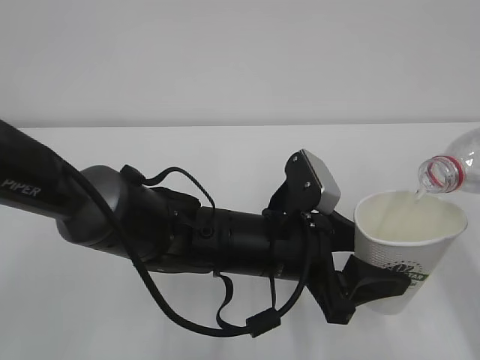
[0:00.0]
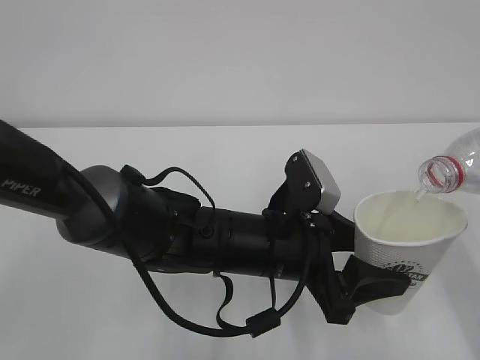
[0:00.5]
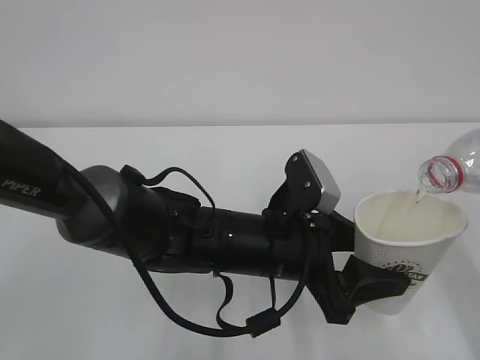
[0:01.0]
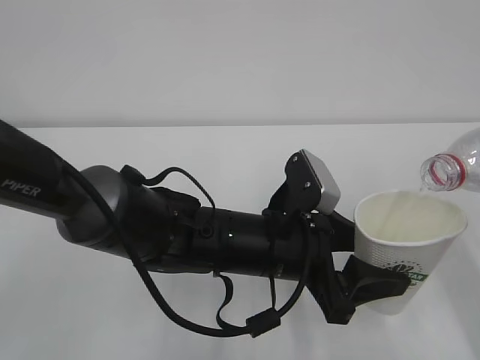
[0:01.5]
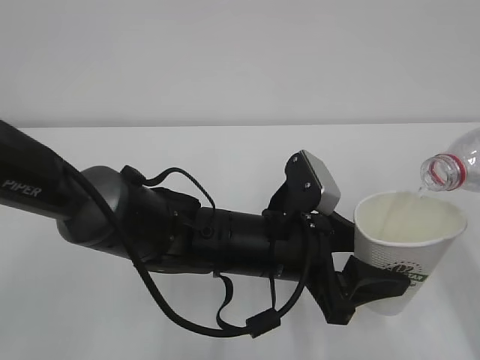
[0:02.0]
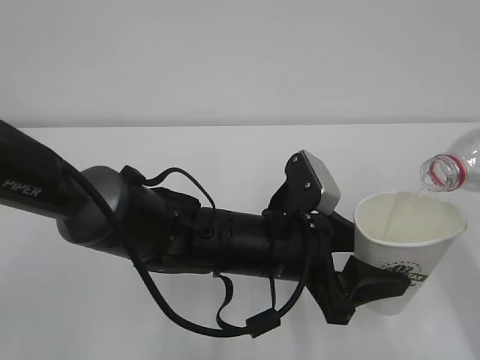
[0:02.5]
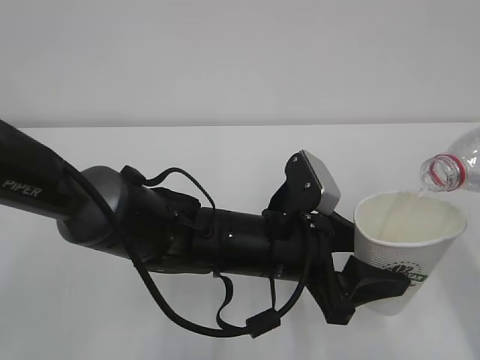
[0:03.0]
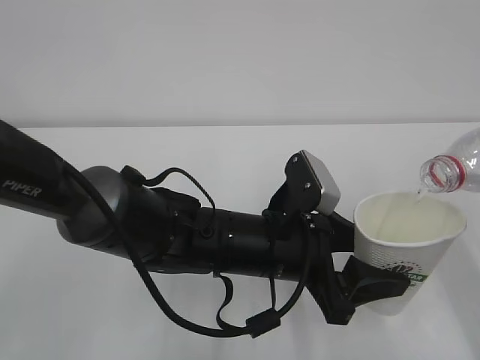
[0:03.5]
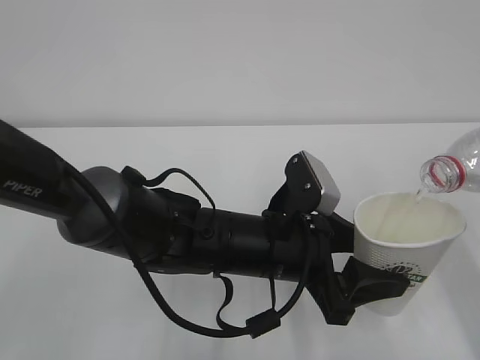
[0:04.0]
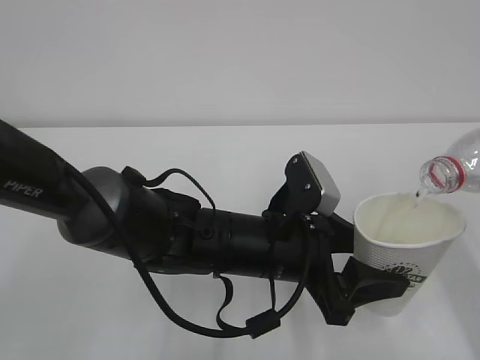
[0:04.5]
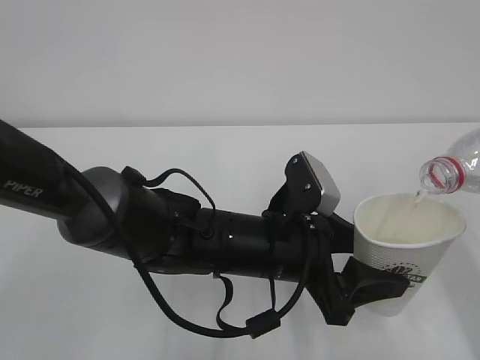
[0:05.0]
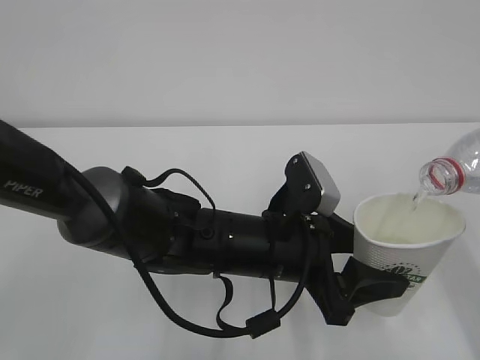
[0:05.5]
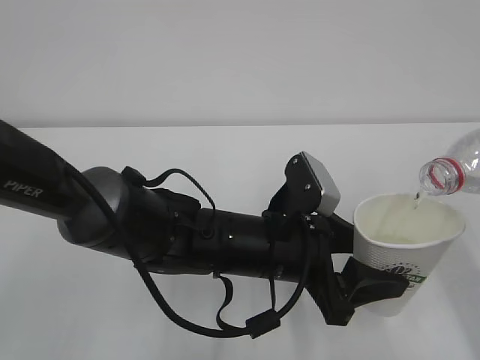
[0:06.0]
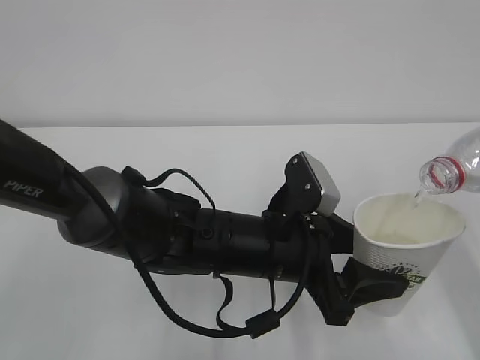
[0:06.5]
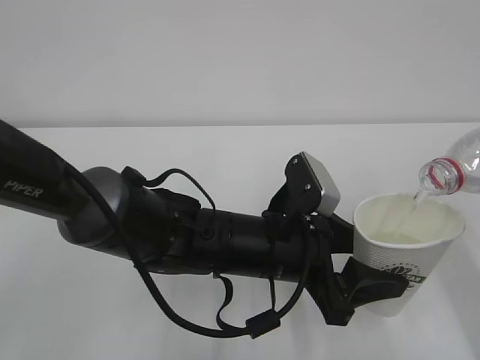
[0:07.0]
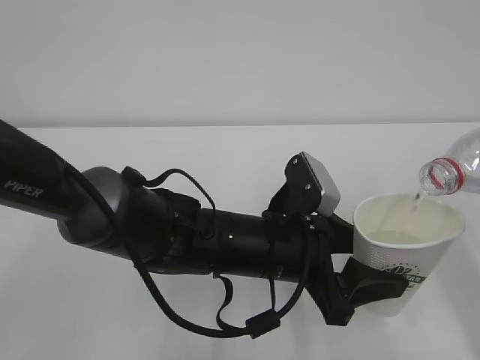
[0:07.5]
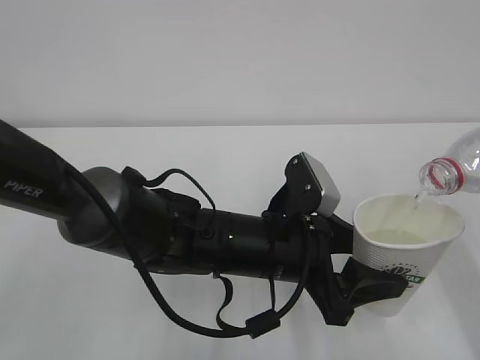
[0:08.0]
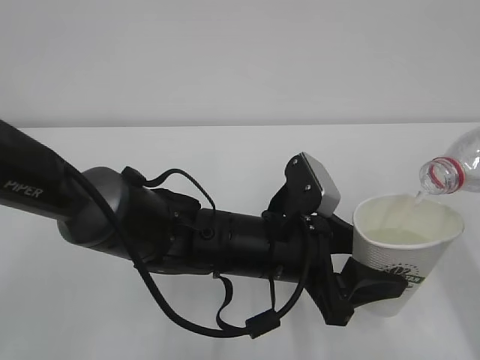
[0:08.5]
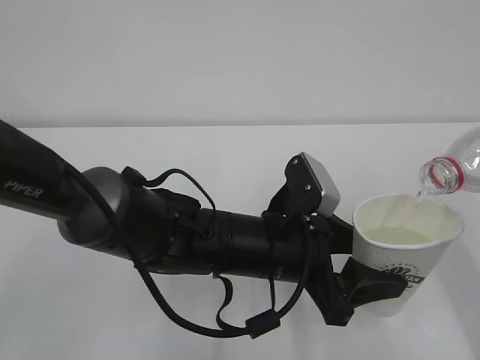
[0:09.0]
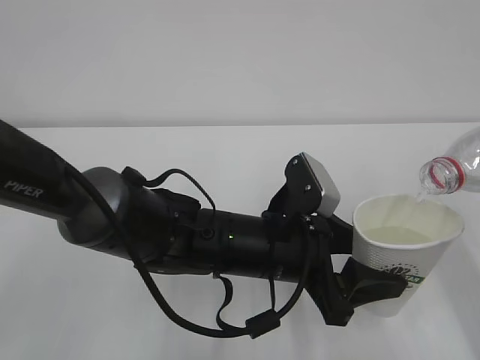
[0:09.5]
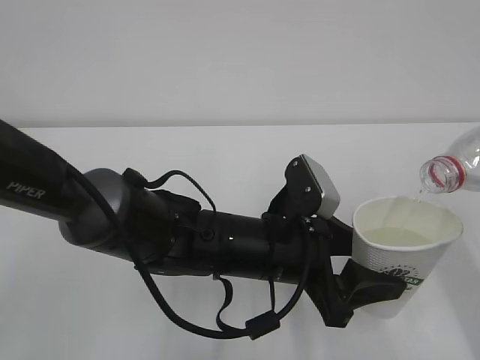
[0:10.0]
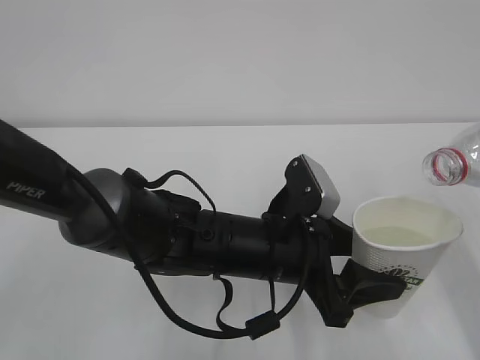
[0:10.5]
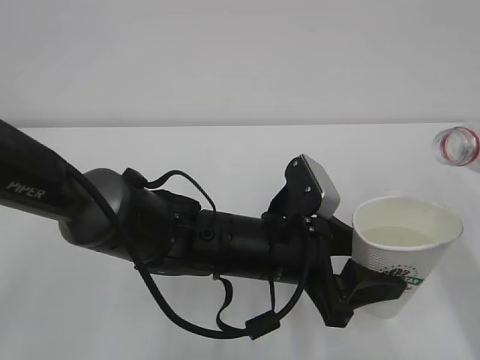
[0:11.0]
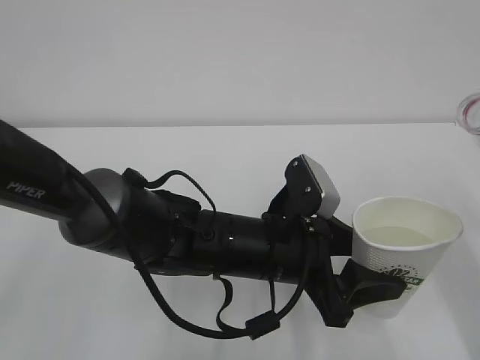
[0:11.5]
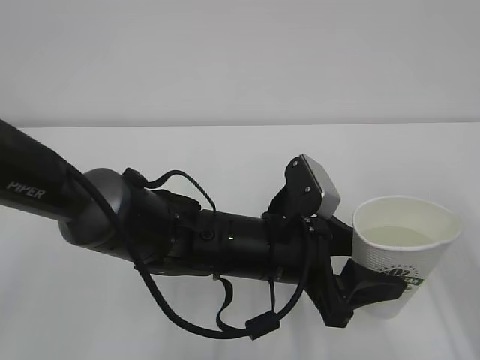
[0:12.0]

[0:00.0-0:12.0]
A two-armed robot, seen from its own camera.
0:00.0 to 0:10.0: Both grippers stay about where they are.

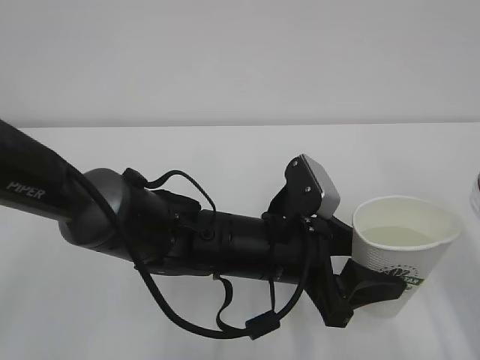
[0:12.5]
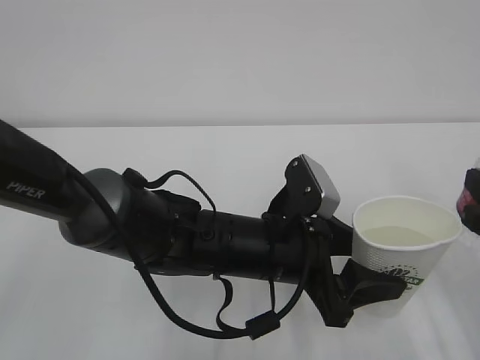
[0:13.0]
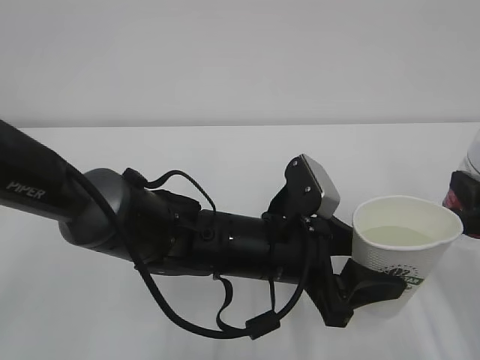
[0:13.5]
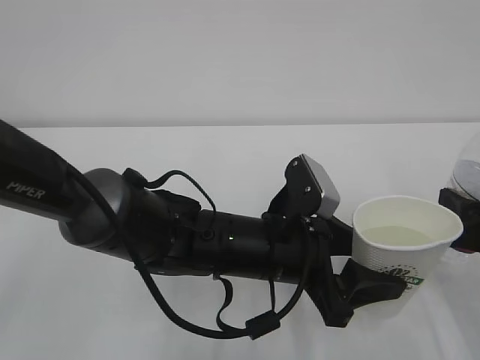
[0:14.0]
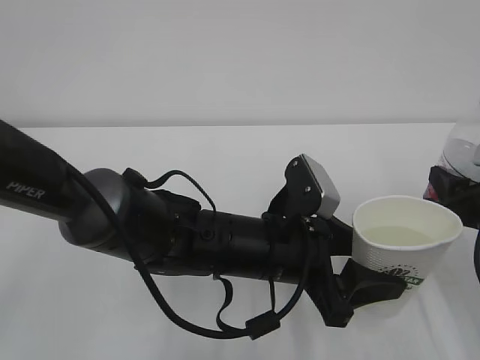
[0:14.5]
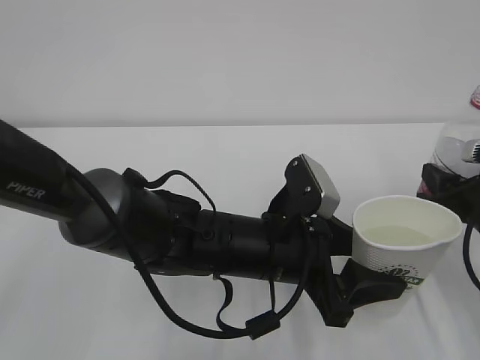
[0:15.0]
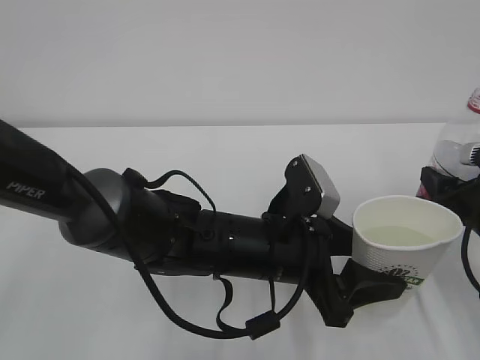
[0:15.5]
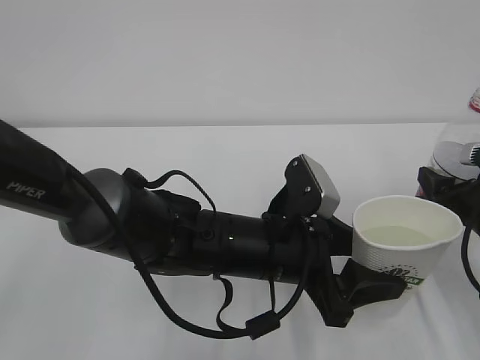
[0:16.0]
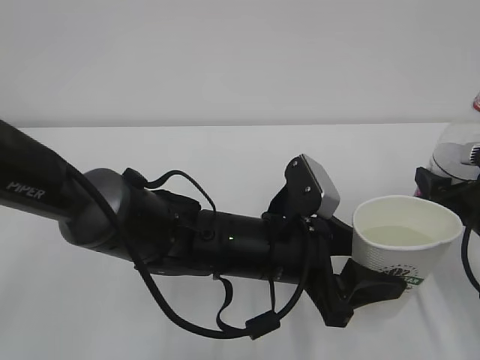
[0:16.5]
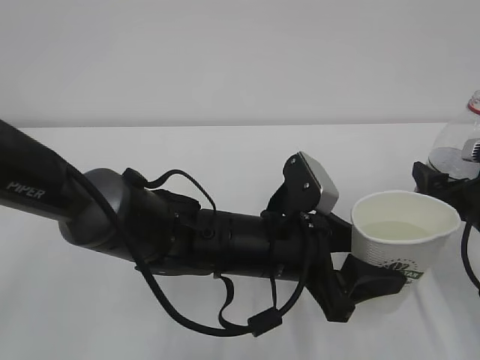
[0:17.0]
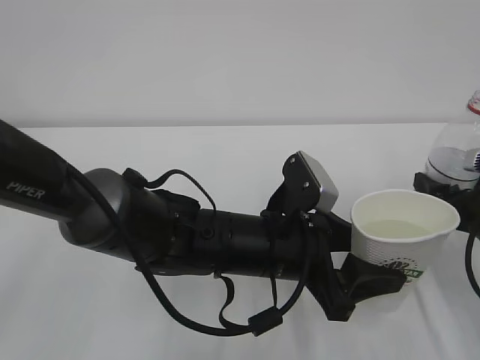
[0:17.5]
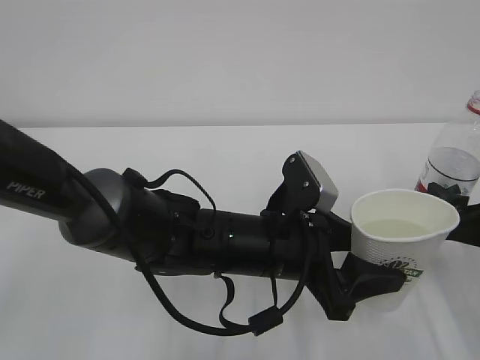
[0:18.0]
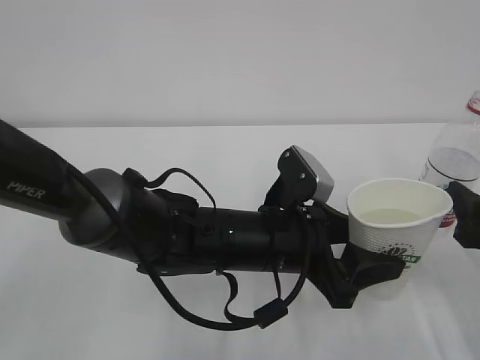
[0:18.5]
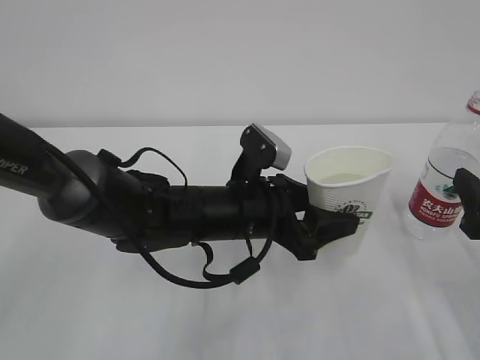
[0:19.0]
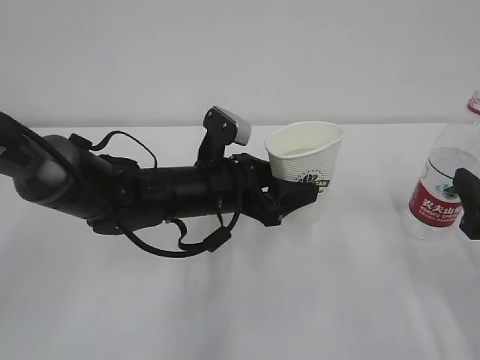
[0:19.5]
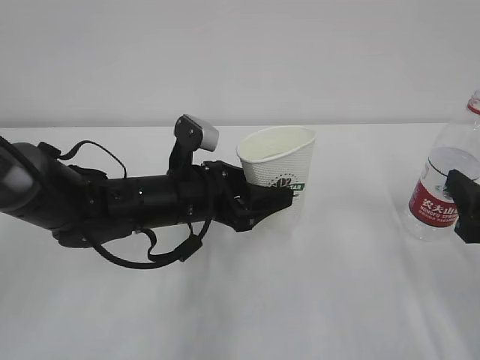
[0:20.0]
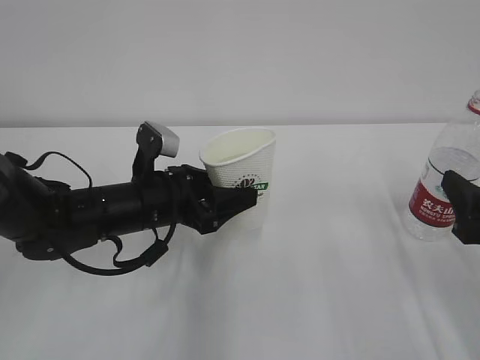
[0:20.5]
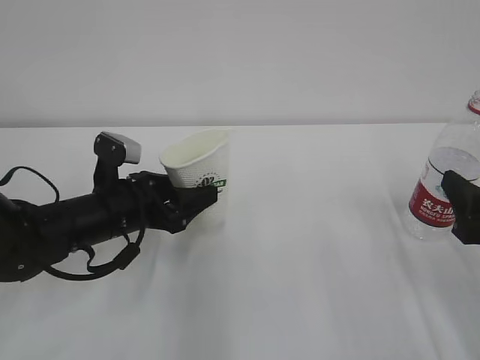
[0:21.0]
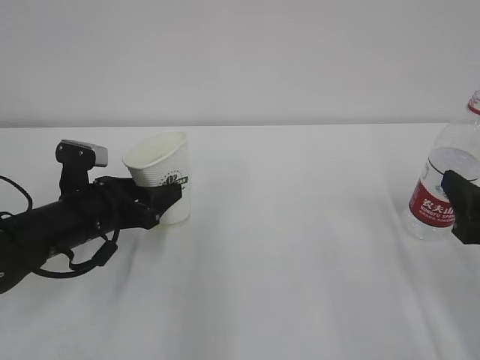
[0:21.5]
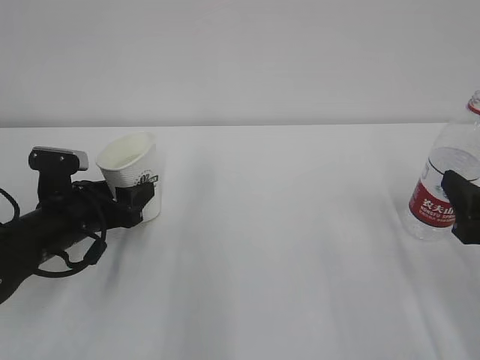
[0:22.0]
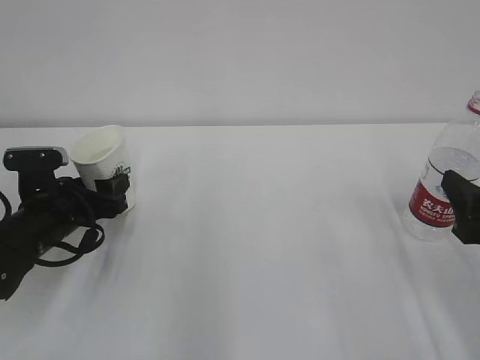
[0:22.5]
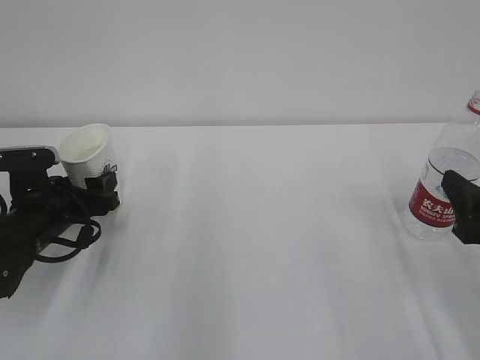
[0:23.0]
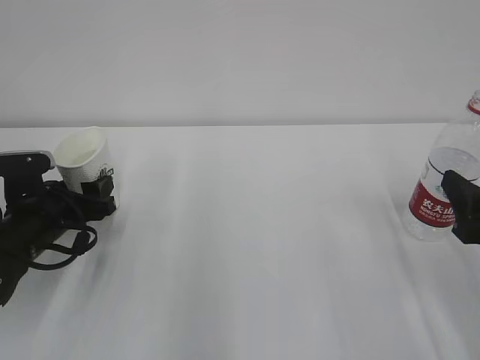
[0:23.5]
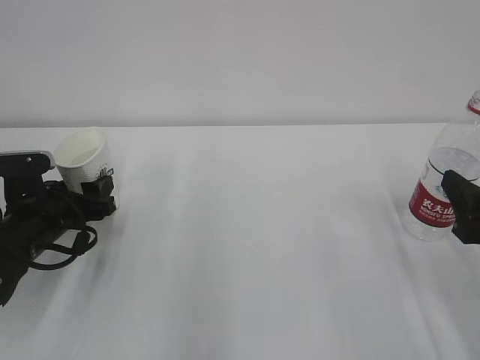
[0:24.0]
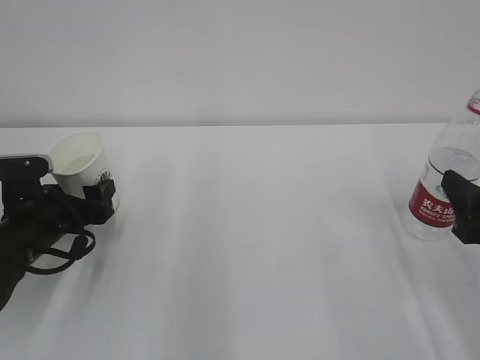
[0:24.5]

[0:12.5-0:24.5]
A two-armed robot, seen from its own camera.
0:12.5 to 0:14.5: The right gripper moves downward and forward, about 10 cm.
0:14.5 to 0:16.5: The right gripper opens its fingers.
0:16.5 to 0:18.5: The right gripper goes roughly 5 cm backward.
0:18.5 to 0:20.5: The left gripper shifts some 15 cm to the left and forward.
0:20.5 to 0:22.5: The left gripper is displaced to the left by approximately 10 cm.
0:22.5 to 0:24.5: The left gripper opens its fingers.

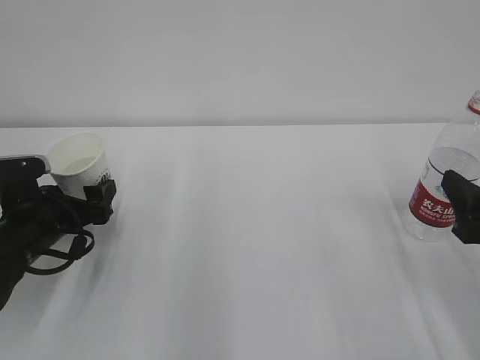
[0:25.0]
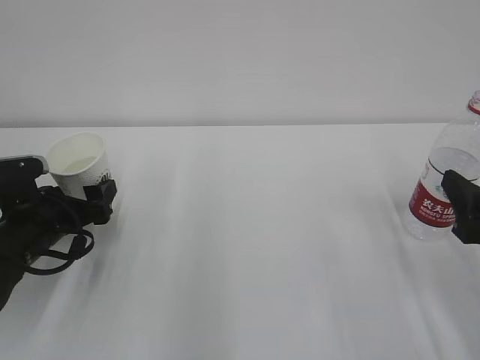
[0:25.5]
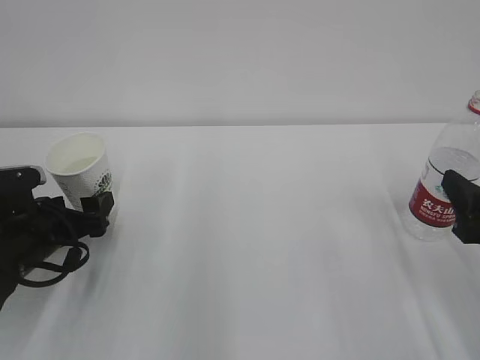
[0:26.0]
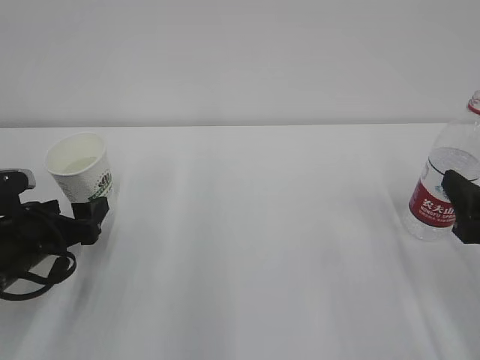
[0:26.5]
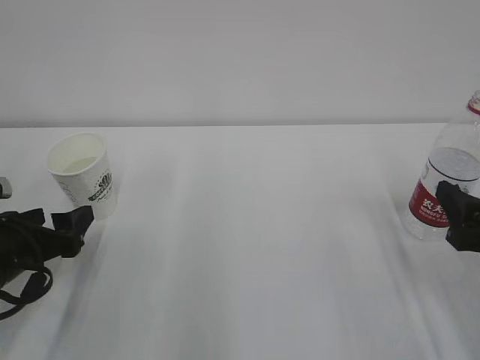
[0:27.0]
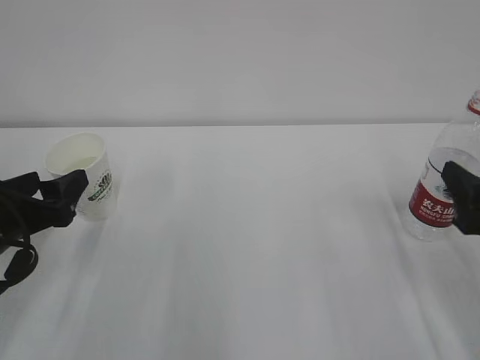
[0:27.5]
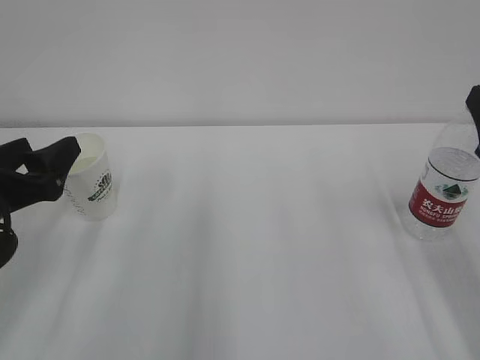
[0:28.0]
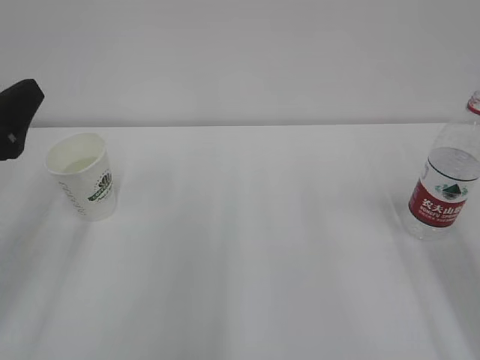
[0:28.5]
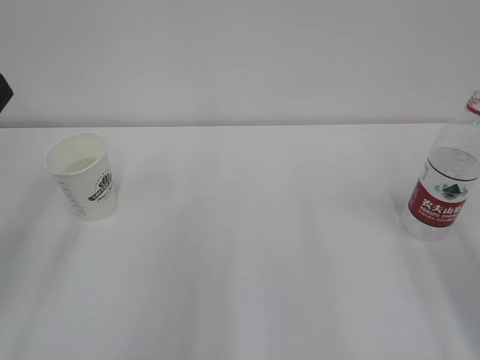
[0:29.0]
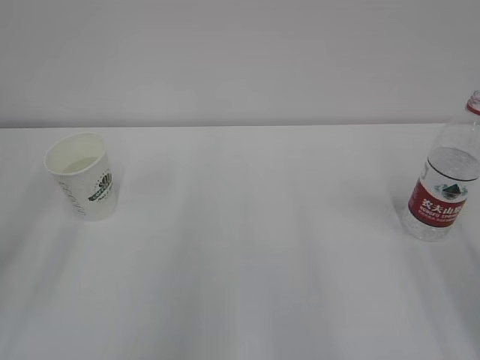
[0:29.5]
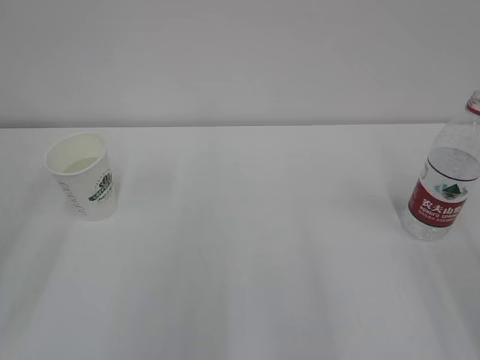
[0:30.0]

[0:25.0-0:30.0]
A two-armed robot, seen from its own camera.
0:25.0 to 0:27.5: The left gripper travels upward and backward by roughly 10 cm.
0:27.5 to 0:30.0: The grippers both shift upward and backward by some 20 cm.
